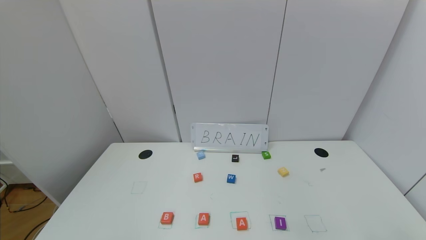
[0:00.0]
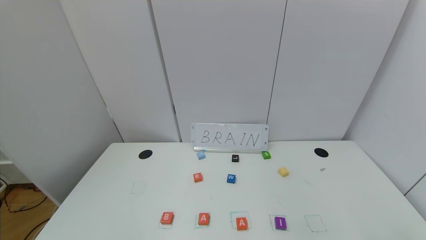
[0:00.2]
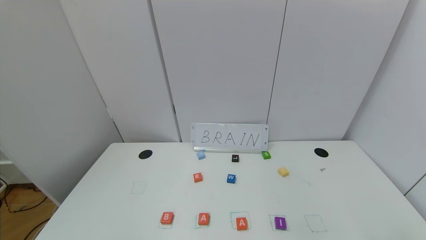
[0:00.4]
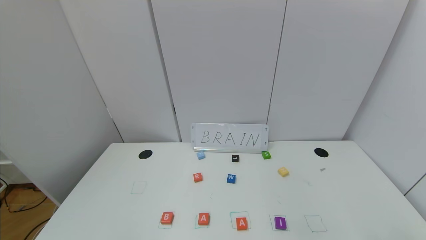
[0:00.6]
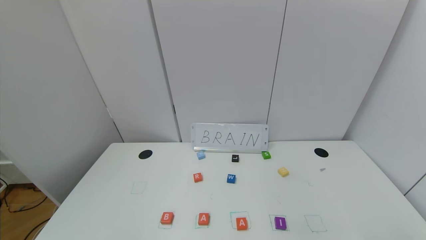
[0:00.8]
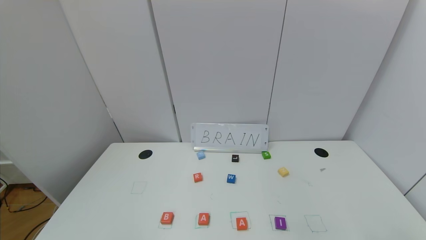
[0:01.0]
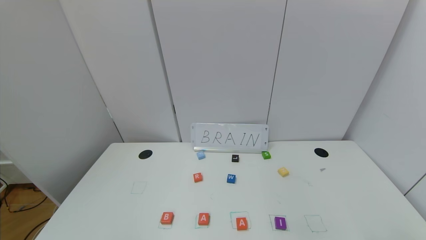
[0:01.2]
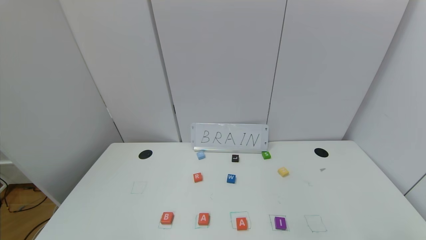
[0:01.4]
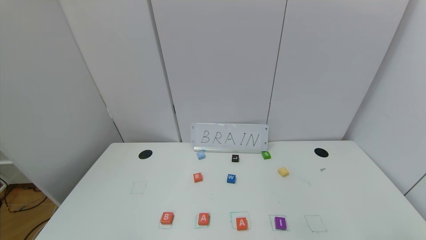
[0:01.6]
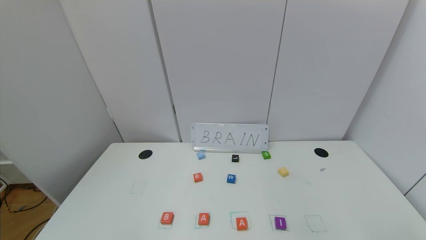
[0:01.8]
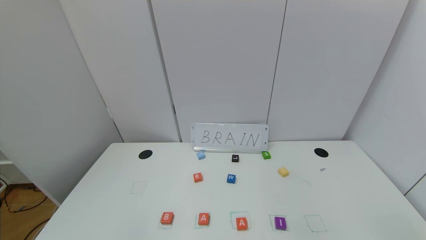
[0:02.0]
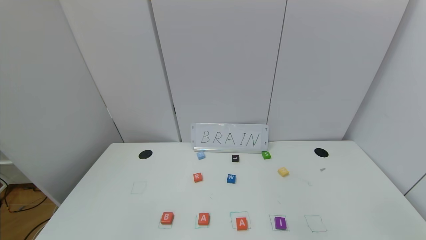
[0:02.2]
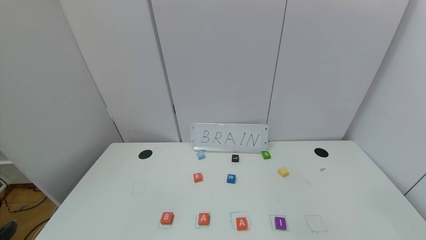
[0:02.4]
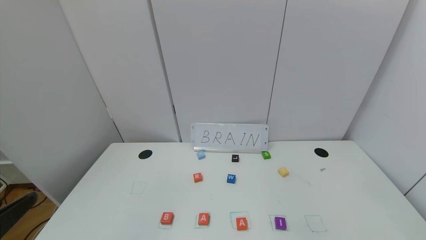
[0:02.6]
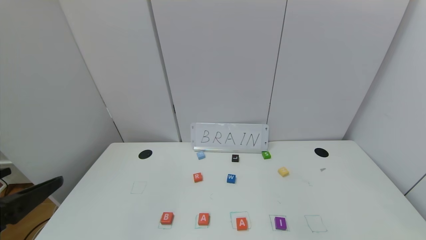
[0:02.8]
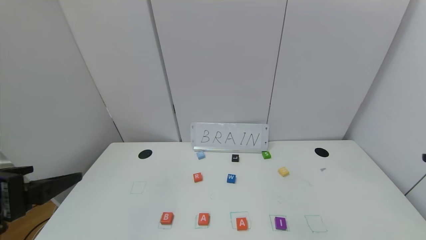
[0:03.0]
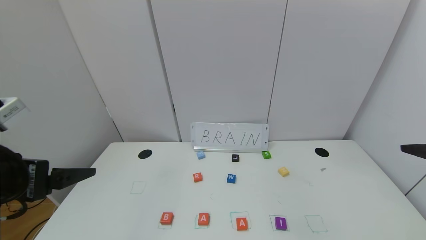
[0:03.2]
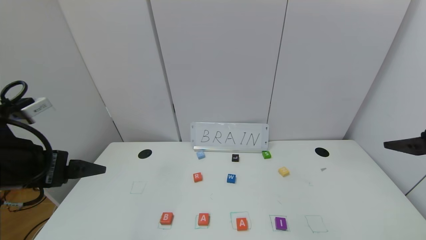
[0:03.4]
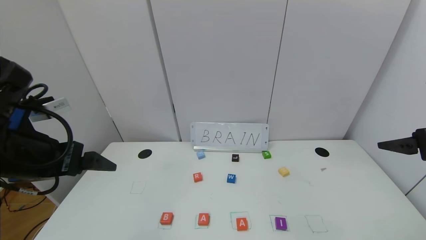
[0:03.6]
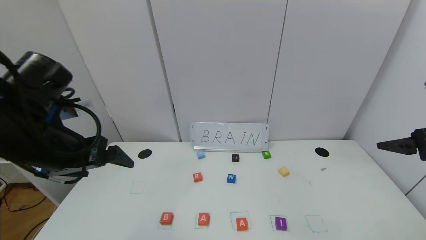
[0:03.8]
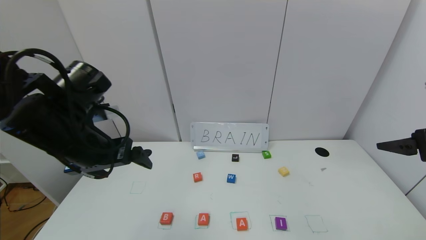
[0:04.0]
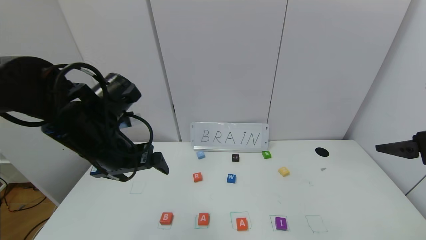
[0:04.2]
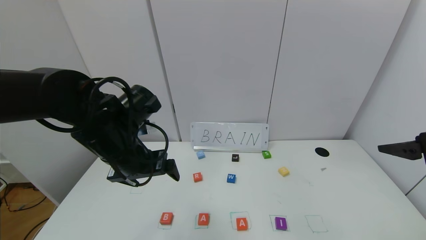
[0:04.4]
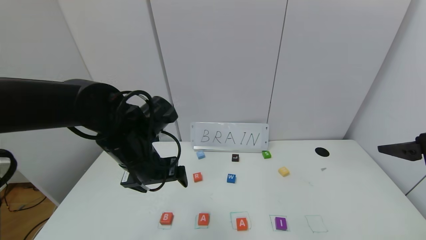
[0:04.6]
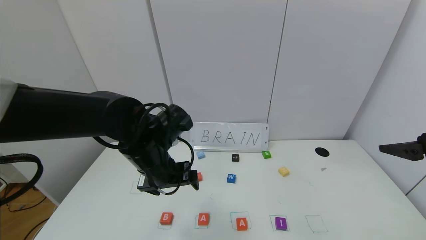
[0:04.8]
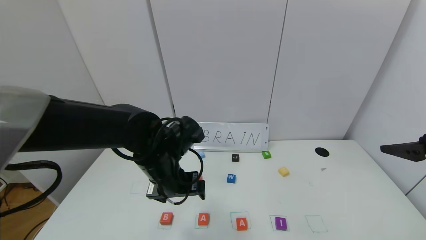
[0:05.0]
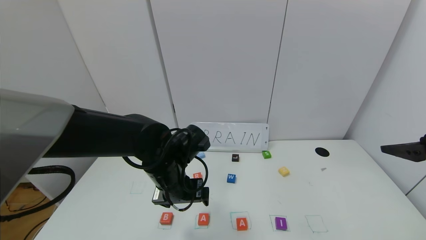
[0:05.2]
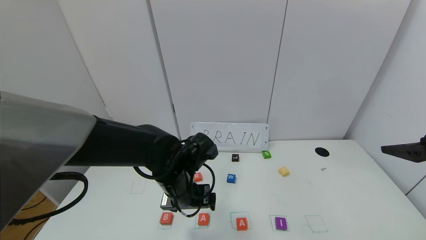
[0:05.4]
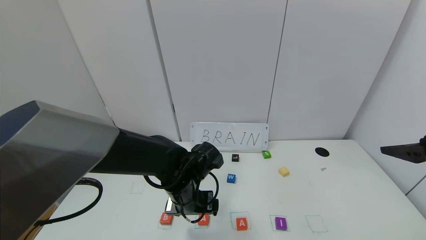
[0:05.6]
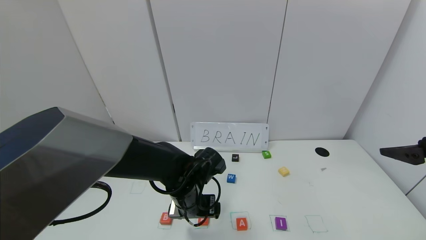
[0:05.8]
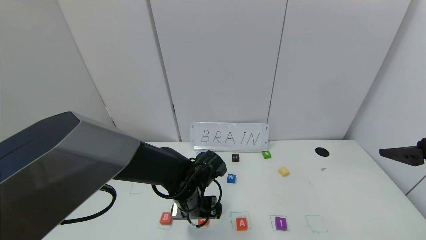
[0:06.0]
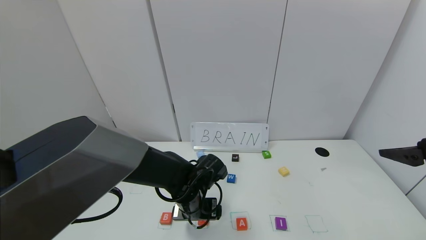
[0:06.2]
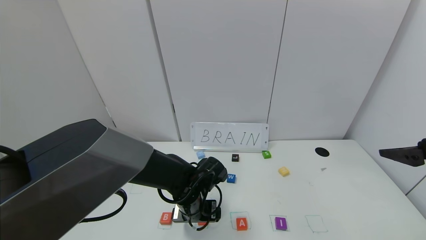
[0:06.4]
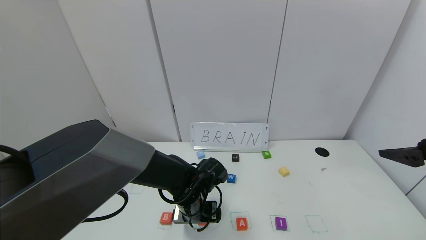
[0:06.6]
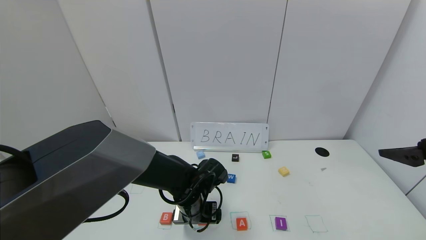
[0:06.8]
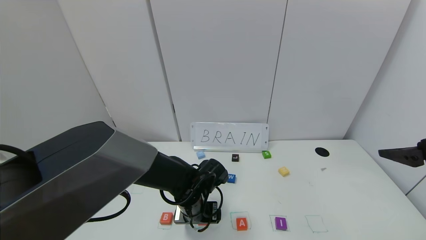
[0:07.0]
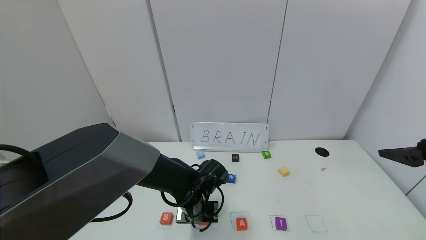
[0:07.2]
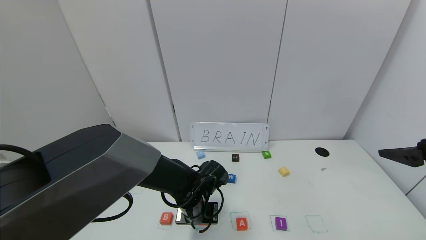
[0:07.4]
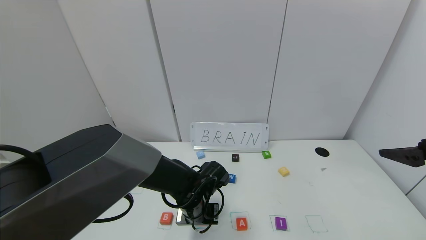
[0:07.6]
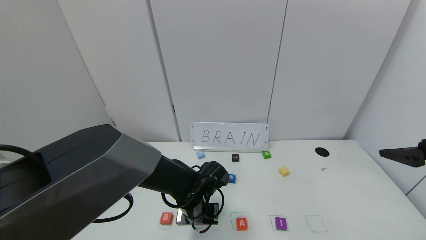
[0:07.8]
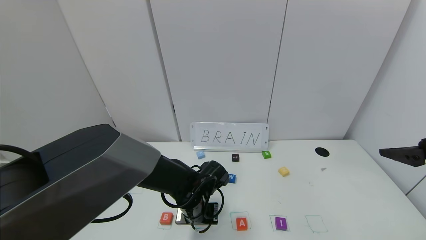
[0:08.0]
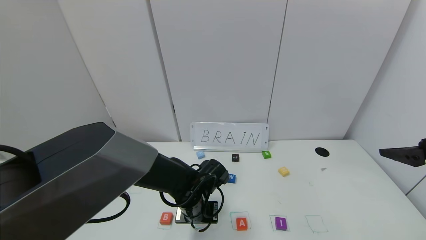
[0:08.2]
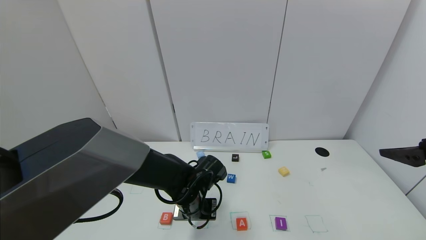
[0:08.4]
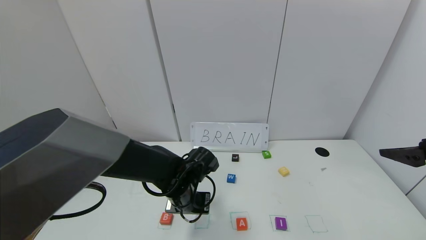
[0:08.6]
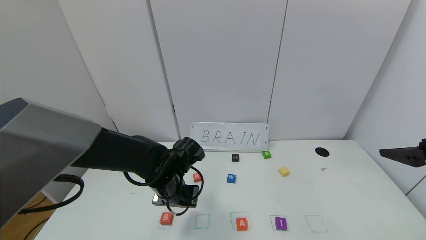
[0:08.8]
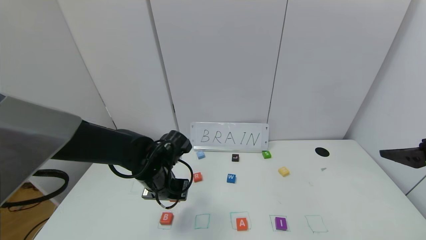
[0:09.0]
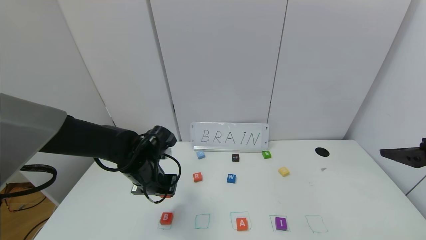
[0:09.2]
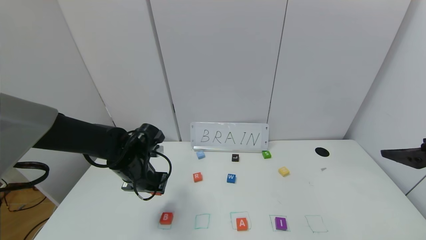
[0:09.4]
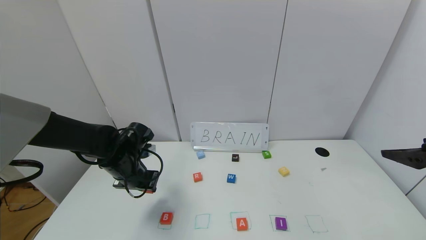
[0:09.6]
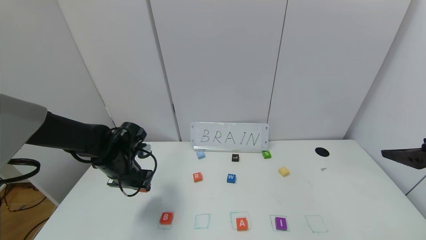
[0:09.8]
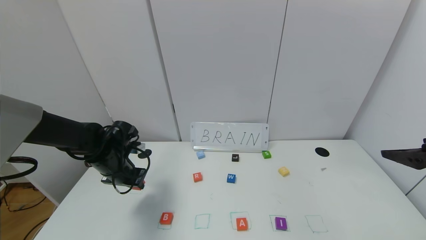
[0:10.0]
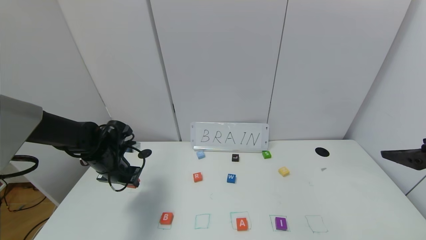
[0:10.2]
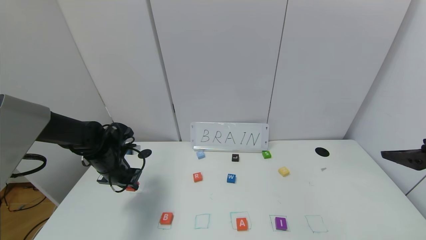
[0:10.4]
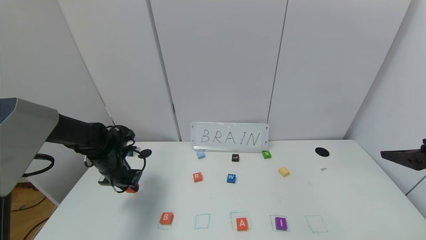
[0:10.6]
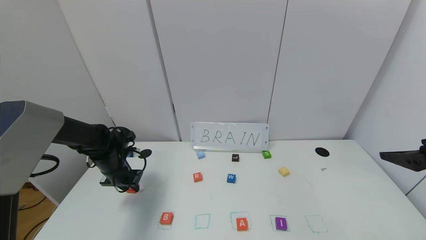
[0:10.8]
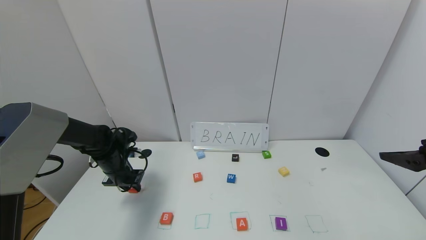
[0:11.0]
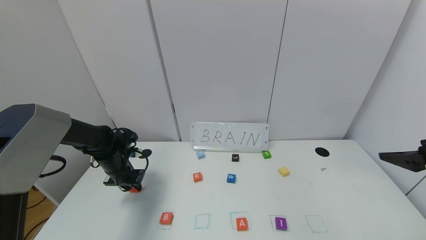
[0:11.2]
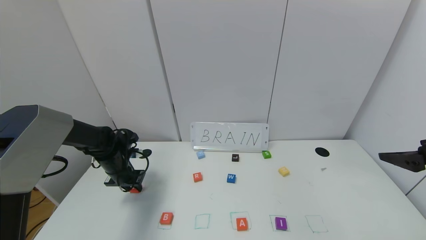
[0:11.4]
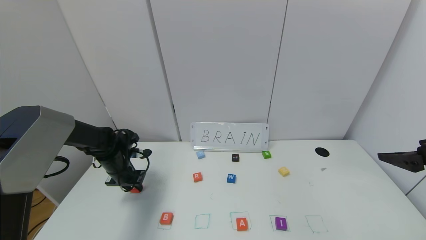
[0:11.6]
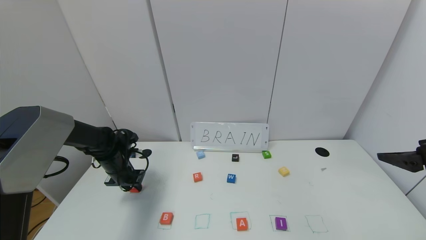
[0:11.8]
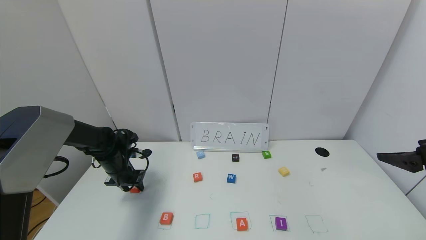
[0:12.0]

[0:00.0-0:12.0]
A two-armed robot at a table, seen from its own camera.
Task of the whole recording: use the gripper to find blocks with the letters b, a, a, and i on the table and arrange them into BAAI, then find r and N and turn the arranged baai into brian.
0:00.0 to 0:01.6: Both grippers stay put.
0:01.6 to 0:03.0: The left gripper goes approximately 20 cm upward and forward.
0:03.0 to 0:04.4: The right gripper travels forward by about 5 cm, while the left gripper goes about 20 cm forward and to the right.
0:04.4 to 0:06.0: The left gripper is displaced downward and to the right by about 15 cm.
0:06.0 to 0:07.6: The left gripper closes.
0:07.6 to 0:09.0: The left gripper travels to the left and upward by about 10 cm.
0:09.0 to 0:10.4: The left gripper moves to the left and forward, about 15 cm.
0:10.4 to 0:12.0: The grippers make only small movements.

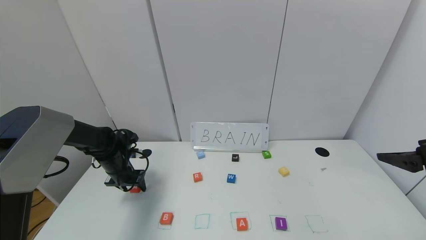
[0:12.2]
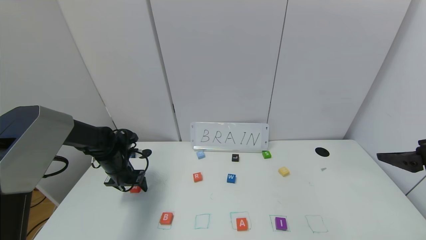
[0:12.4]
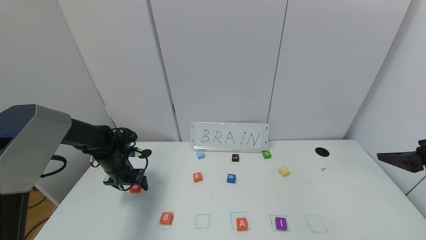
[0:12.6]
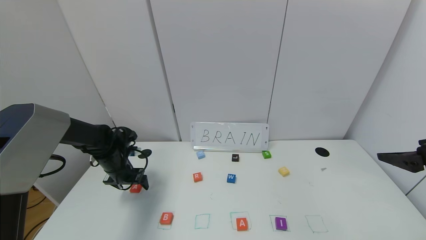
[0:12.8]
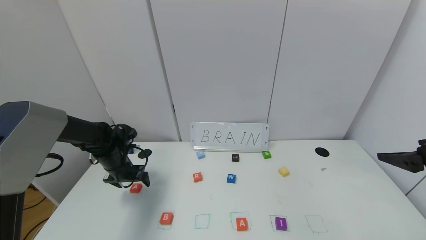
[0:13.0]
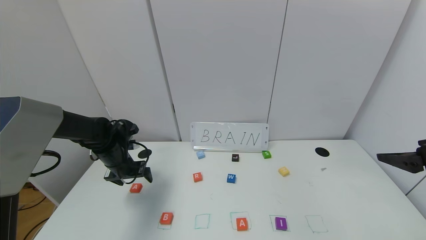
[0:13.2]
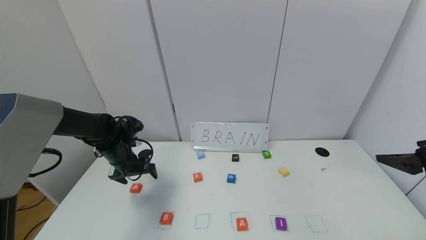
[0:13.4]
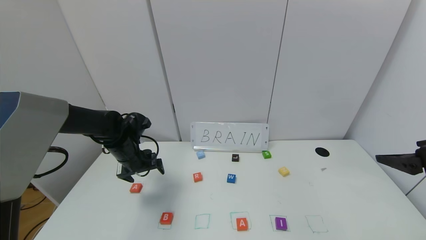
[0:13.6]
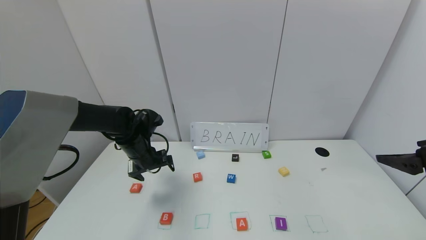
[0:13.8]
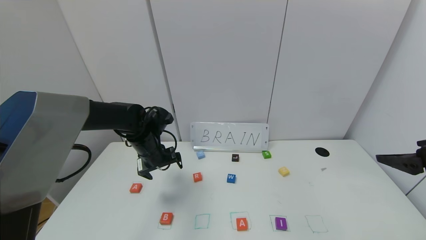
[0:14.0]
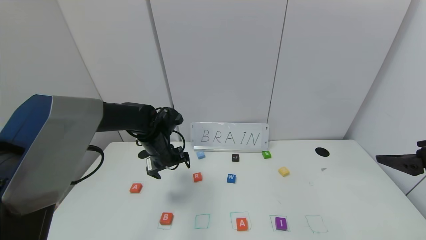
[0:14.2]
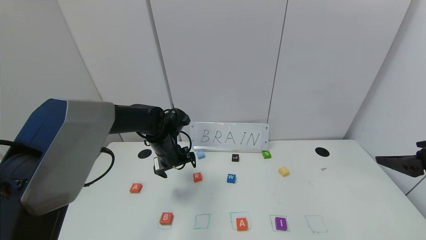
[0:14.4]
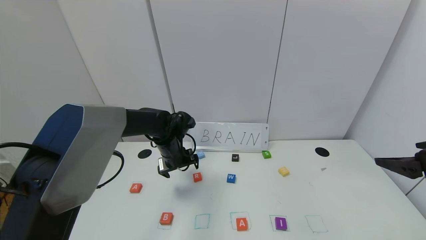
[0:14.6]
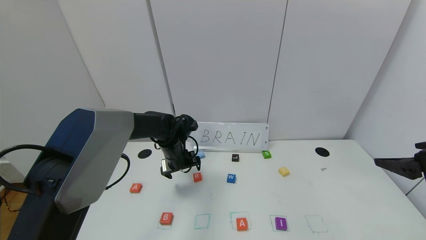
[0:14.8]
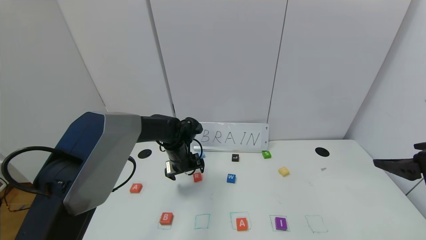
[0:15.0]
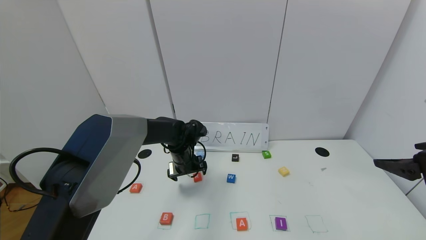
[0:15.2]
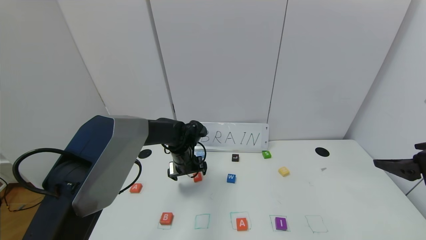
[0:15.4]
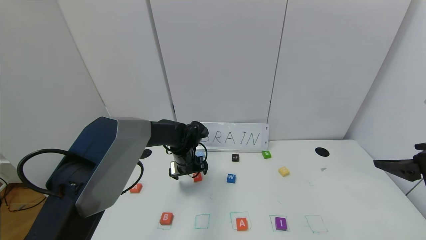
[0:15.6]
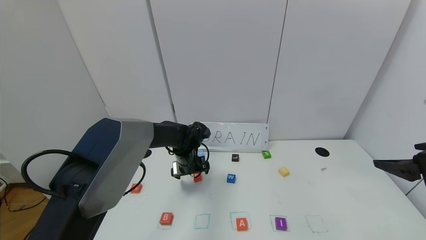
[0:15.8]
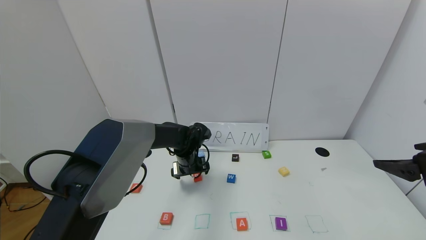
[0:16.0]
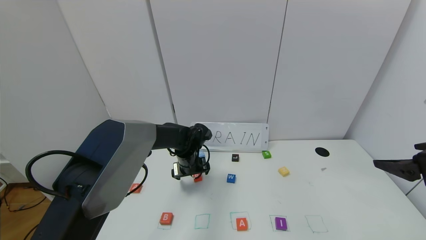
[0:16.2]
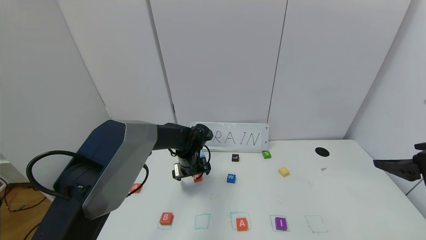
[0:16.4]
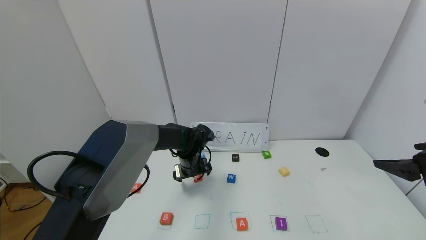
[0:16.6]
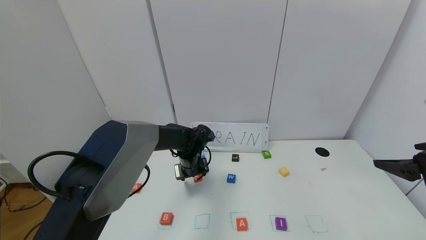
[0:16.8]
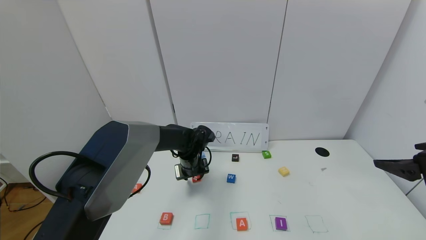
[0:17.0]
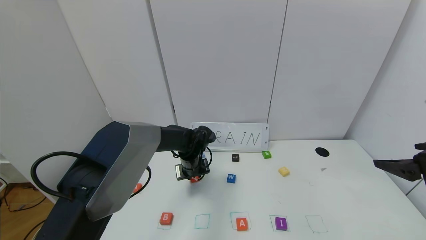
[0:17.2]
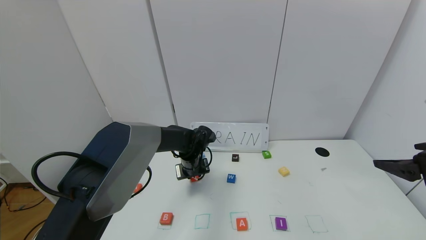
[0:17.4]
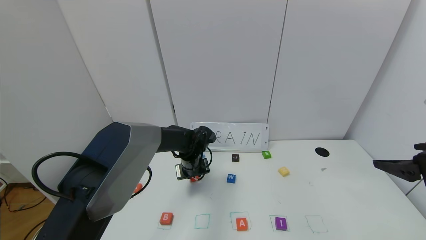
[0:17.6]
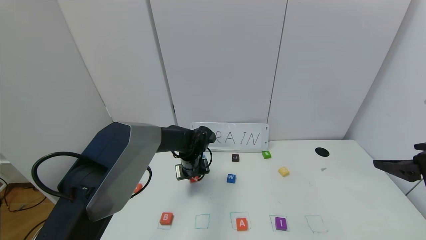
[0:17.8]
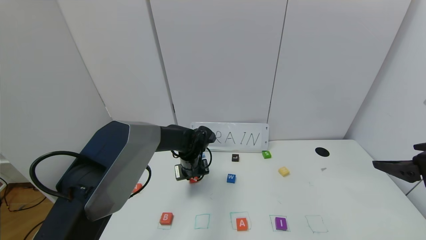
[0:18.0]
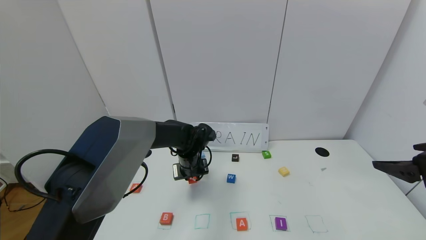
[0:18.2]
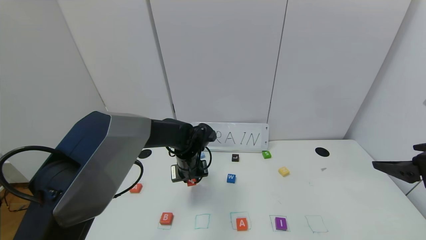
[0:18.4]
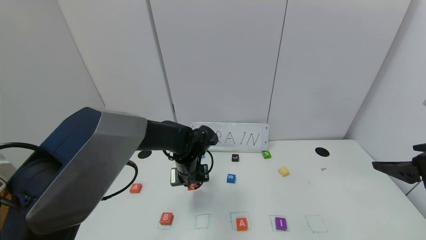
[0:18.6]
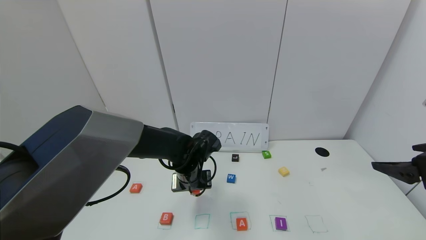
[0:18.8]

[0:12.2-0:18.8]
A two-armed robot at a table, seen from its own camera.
Task of the whole recording: use the gripper to find blocks with the letters b, a, a, and i on the table and arrange them into BAAI, then find r and N and turn the arranged baai into brian.
0:12.2 to 0:13.8: The left gripper goes about 10 cm to the right and upward, and opens.
0:13.8 to 0:15.4: The left gripper heads to the right, covering some 10 cm.
0:15.4 to 0:17.2: The left gripper closes its fingers.
0:17.2 to 0:18.8: The left gripper travels backward by about 10 cm.
